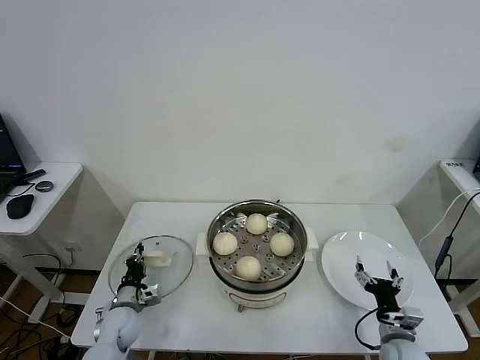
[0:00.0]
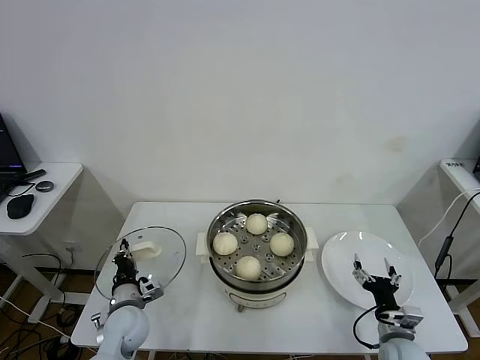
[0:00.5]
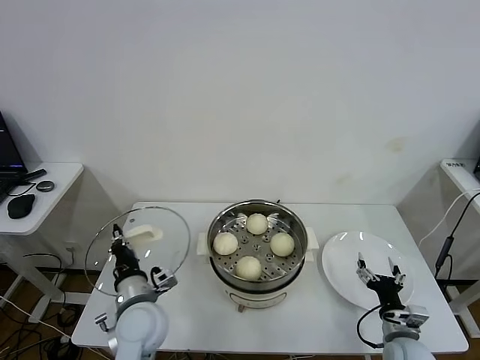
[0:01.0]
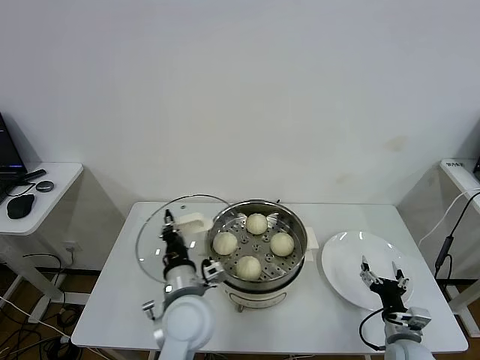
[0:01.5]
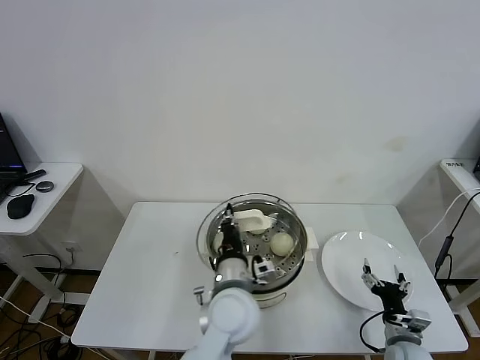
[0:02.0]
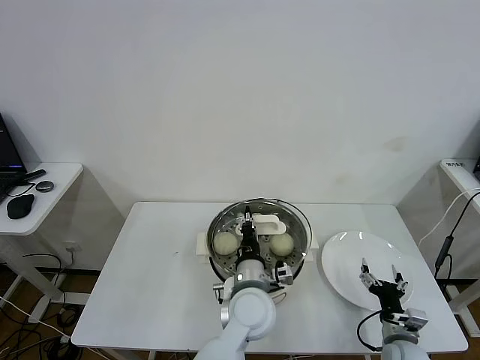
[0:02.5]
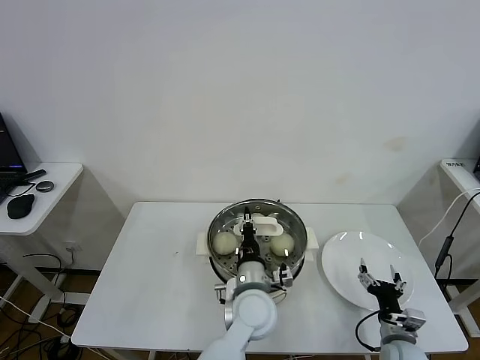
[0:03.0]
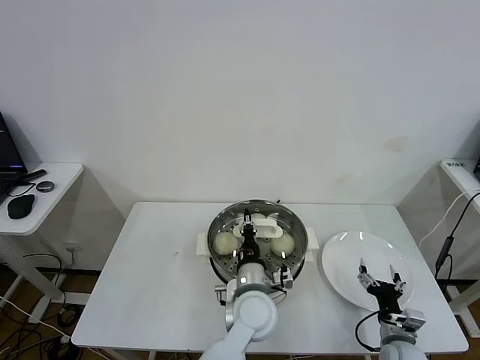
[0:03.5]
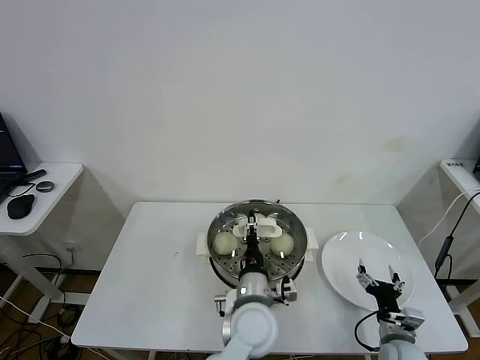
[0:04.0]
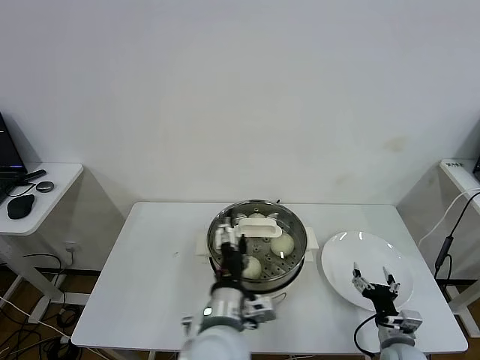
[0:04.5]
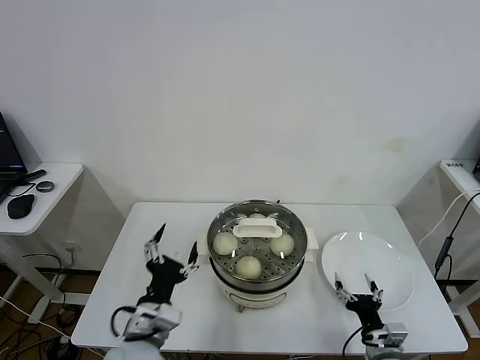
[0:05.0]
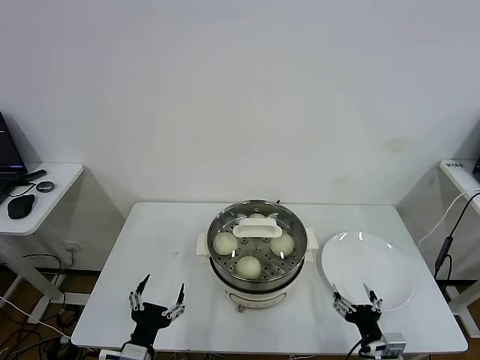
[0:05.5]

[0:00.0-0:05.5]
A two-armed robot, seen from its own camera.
Task of the whole recording: take steamed baozi put them in steamer.
Step, 0:00.5 to 0:04.0: Place the pot lid on the steamer with left gripper.
0:00.0 to 0:02.0: The left gripper heads to the right and upward, covering roughly 35 cm.
0:02.0 to 0:03.5: The left gripper travels downward by about 5 cm.
0:03.5 to 0:05.5: The left gripper moves to the left and backward, some 30 cm, and opens up, while the right gripper goes roughly 5 cm backward.
